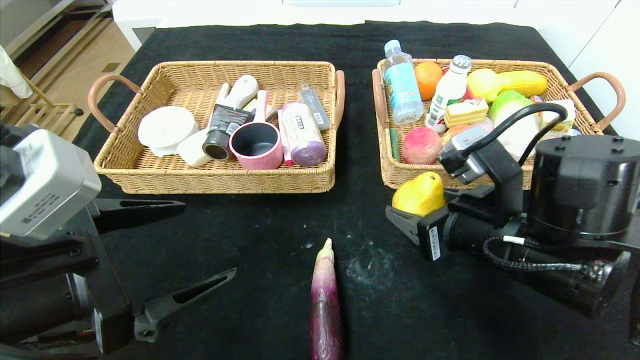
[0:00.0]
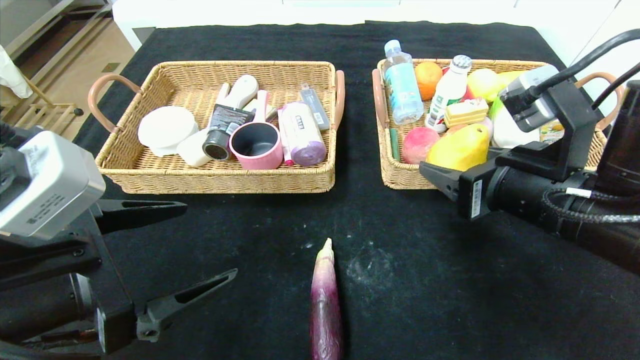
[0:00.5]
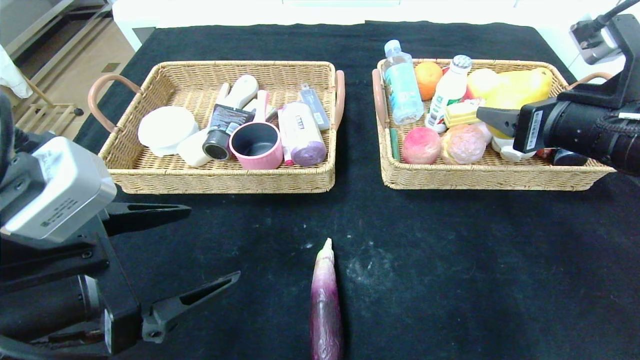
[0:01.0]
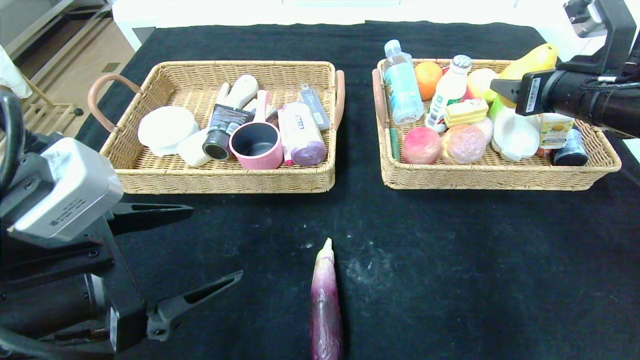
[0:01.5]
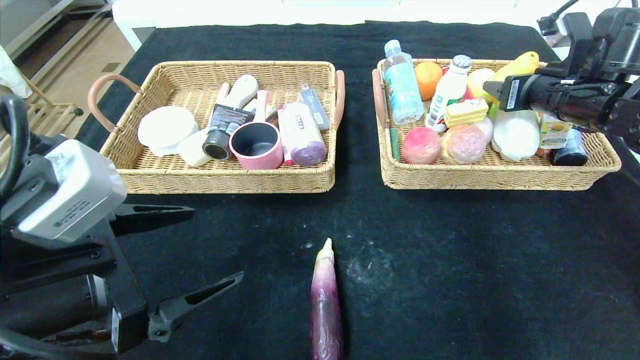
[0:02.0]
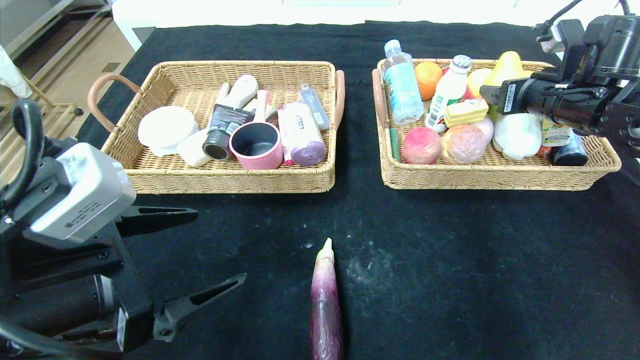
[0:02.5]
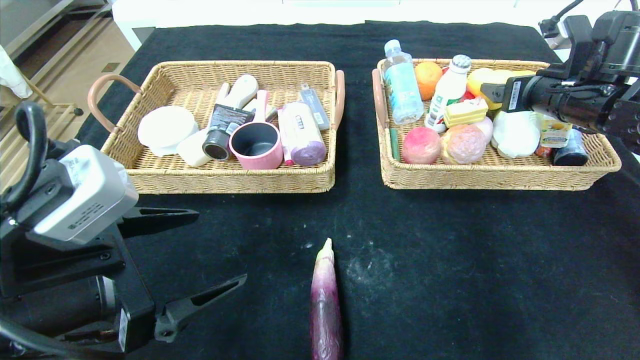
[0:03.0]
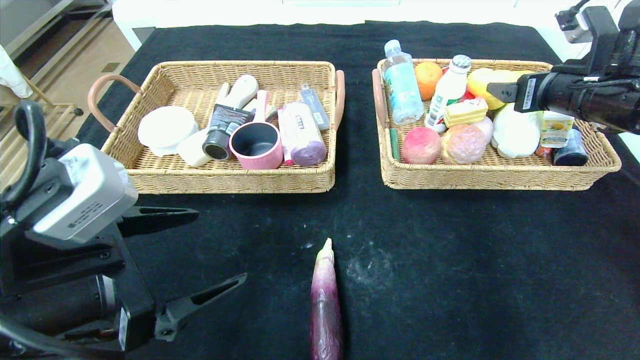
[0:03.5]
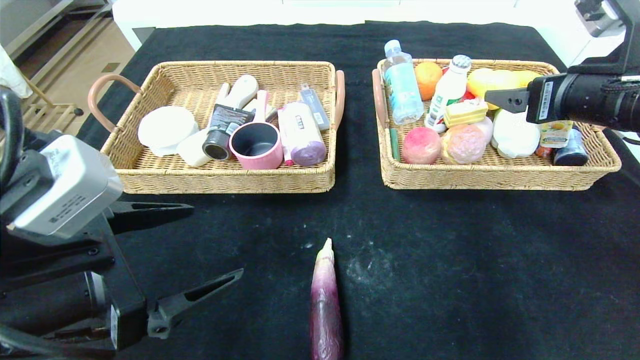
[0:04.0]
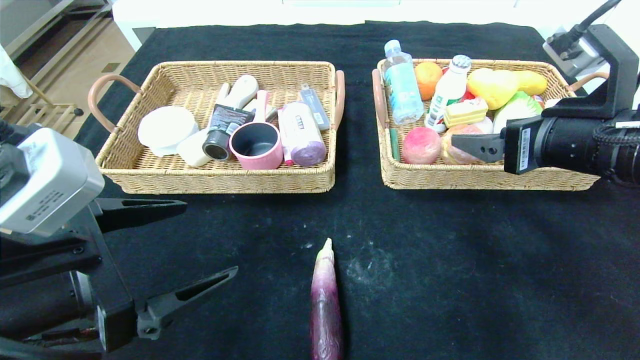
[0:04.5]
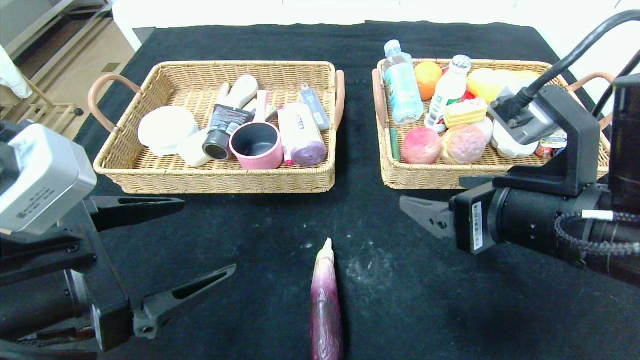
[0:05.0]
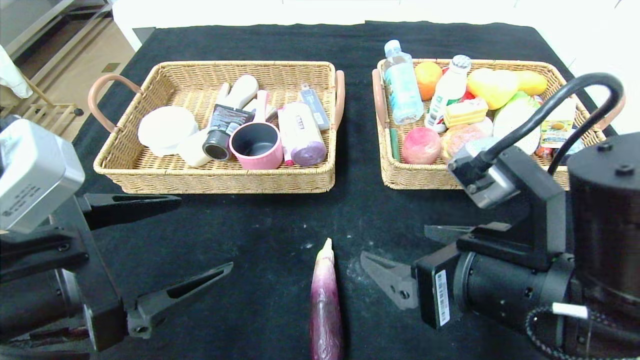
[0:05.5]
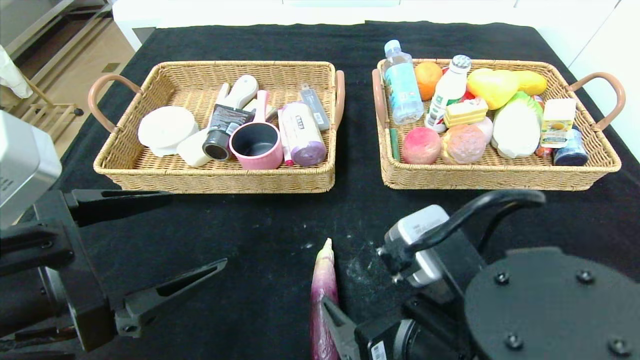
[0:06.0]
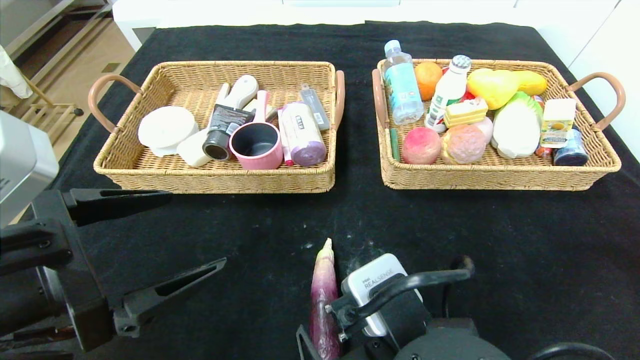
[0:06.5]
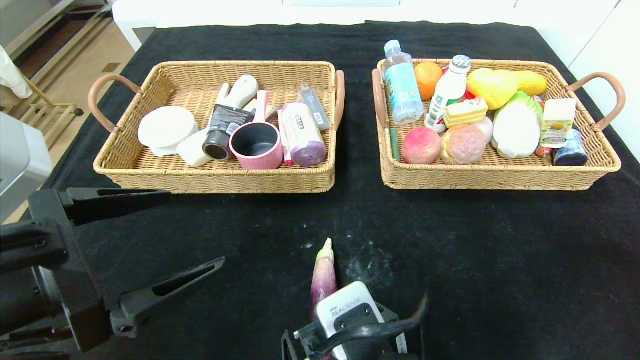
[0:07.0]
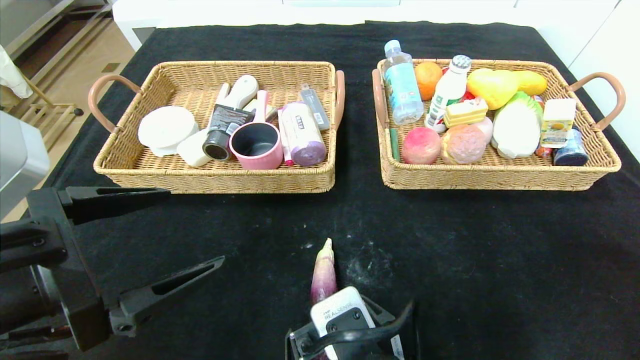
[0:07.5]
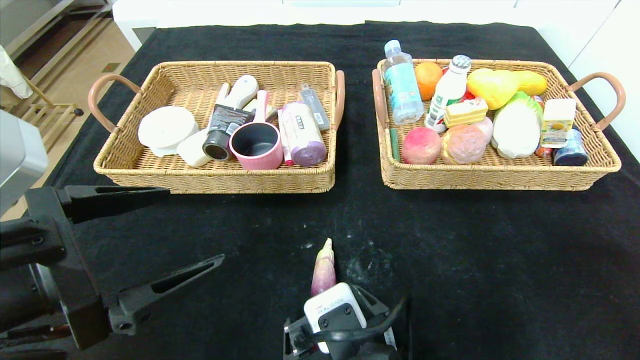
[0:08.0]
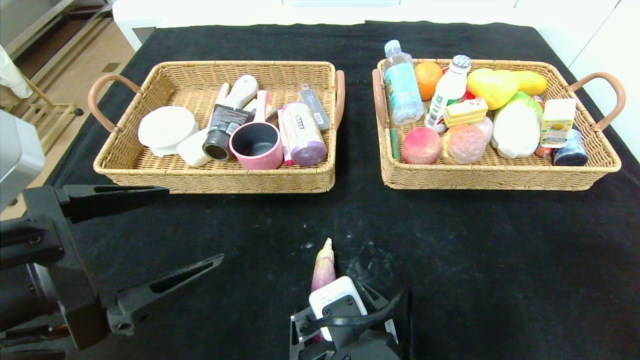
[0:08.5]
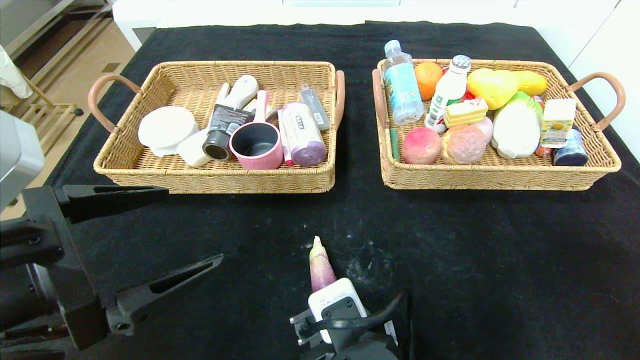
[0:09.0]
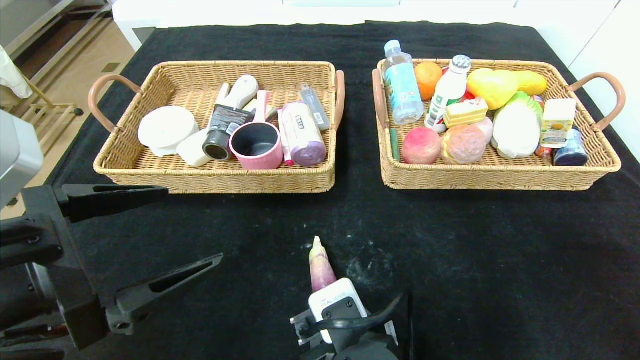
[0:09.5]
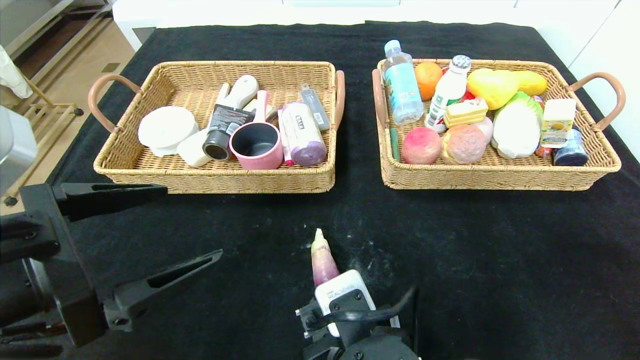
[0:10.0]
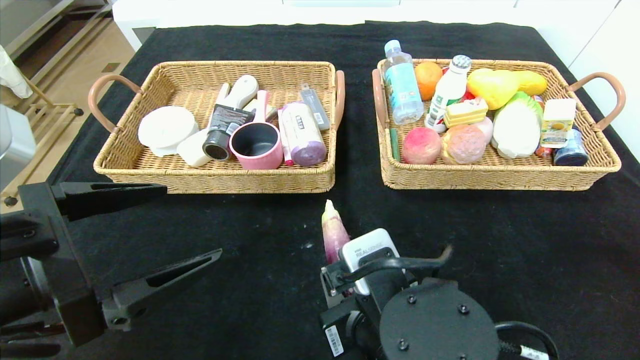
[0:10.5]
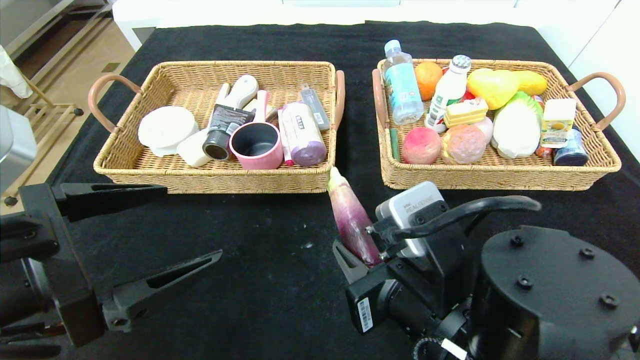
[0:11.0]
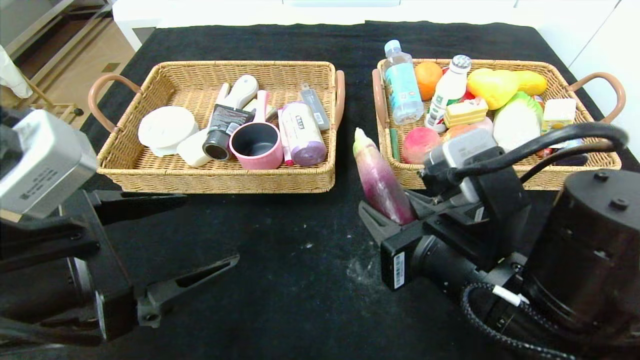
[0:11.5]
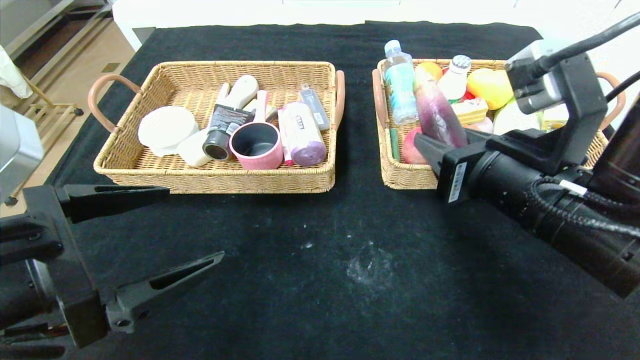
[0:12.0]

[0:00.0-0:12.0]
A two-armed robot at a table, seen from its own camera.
Step, 0:00.0 to 0:04.5: Pick up the pear and put it in the right basket.
0:00.0 to 0:02.0: The right gripper shifts approximately 25 cm forward, to the right and upward.
0:02.0 to 0:04.0: The right gripper is displaced backward by some 10 cm, and opens.
0:04.0 to 0:06.0: The right gripper travels to the left, backward and downward by about 30 cm.
0:06.0 to 0:08.0: The right gripper is displaced downward and to the left by about 10 cm.
0:08.0 to 0:10.0: The right gripper closes.
0:10.0 to 0:12.0: The right gripper is displaced upward, to the right and forward by approximately 20 cm.

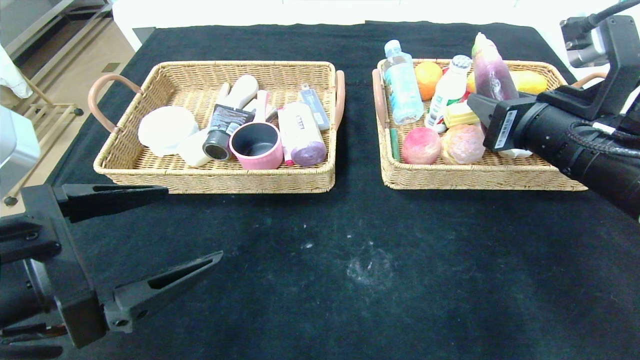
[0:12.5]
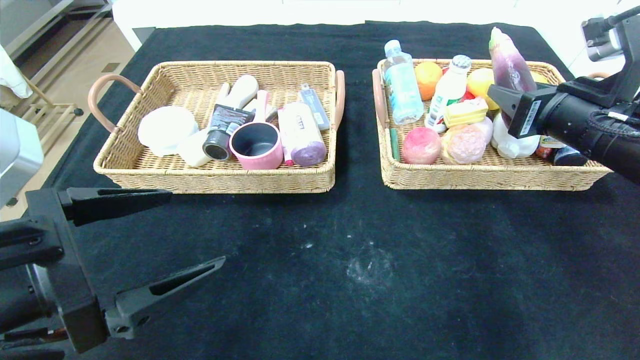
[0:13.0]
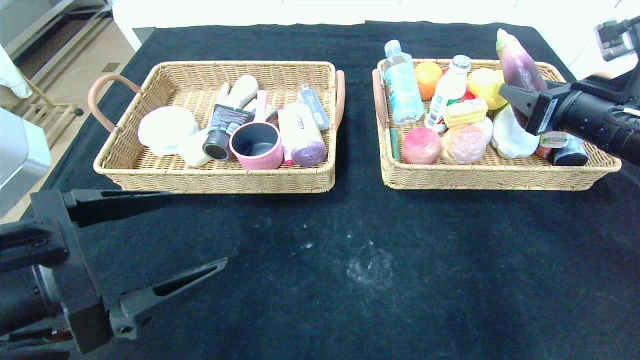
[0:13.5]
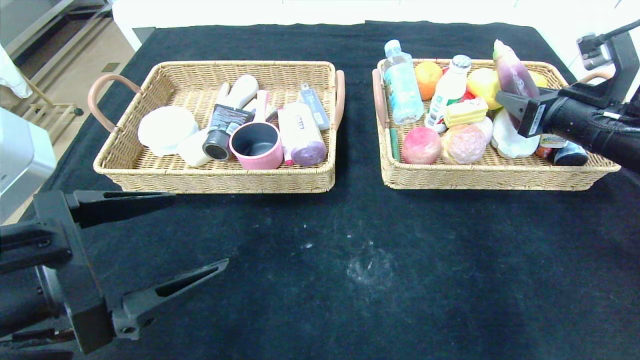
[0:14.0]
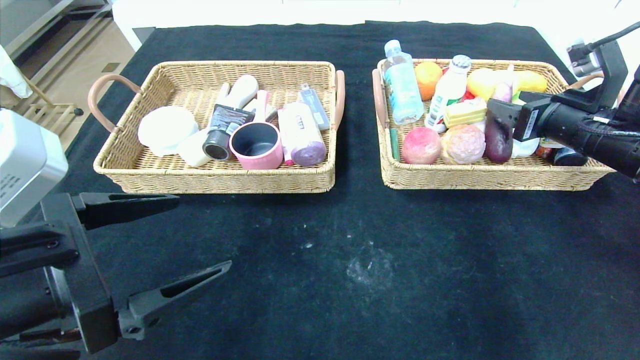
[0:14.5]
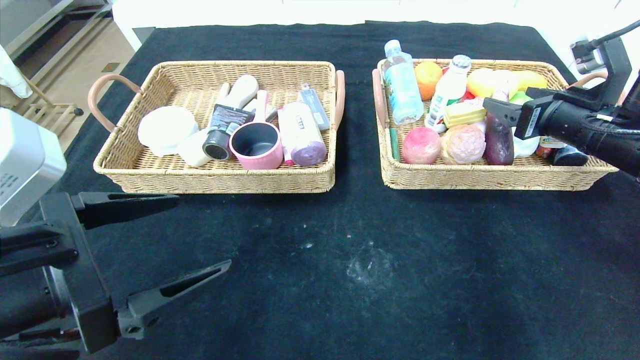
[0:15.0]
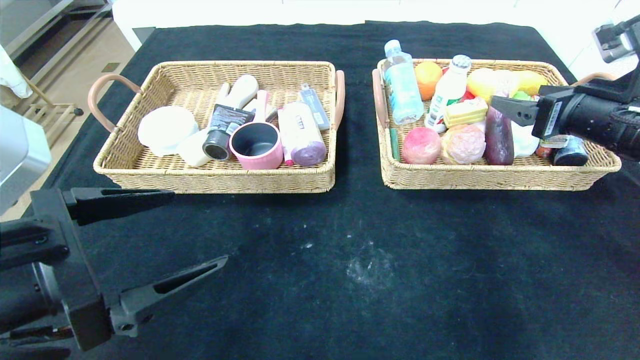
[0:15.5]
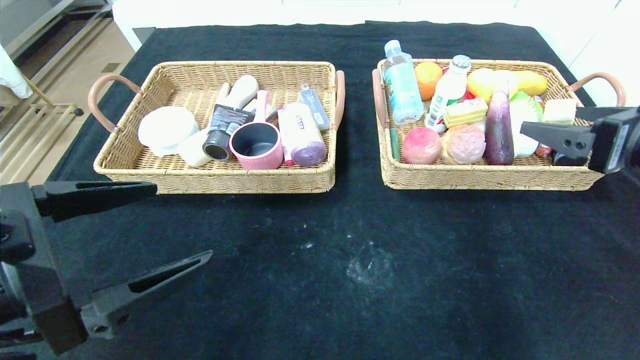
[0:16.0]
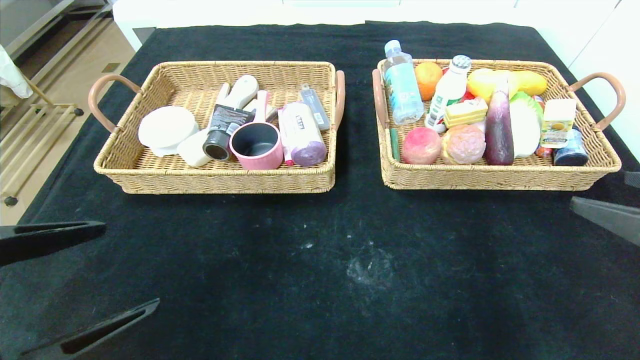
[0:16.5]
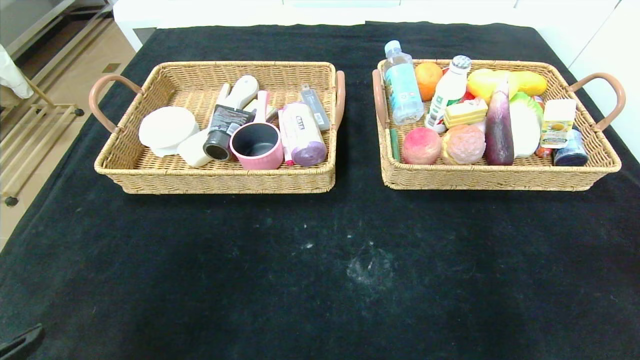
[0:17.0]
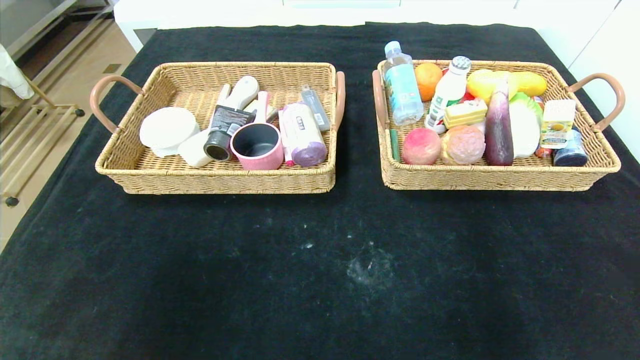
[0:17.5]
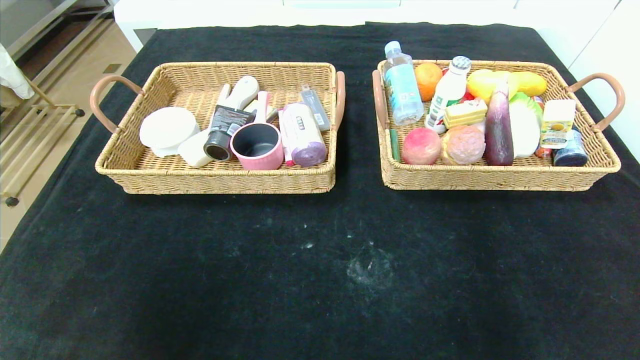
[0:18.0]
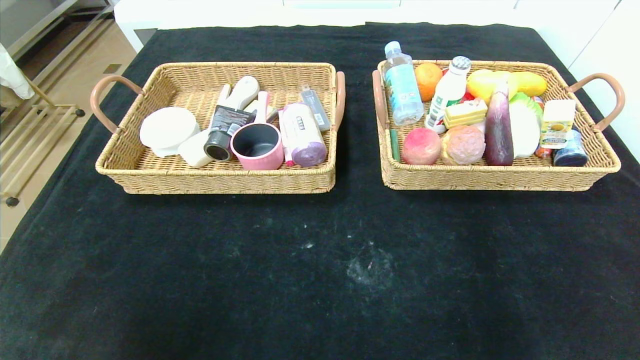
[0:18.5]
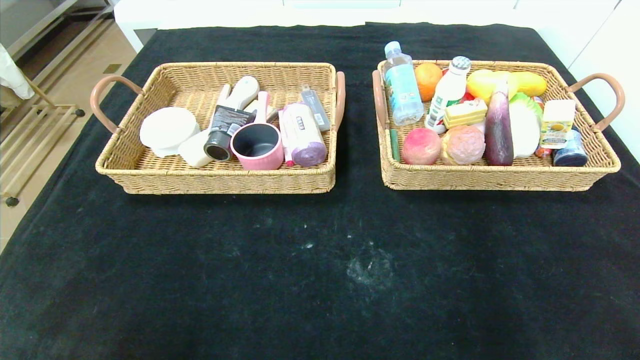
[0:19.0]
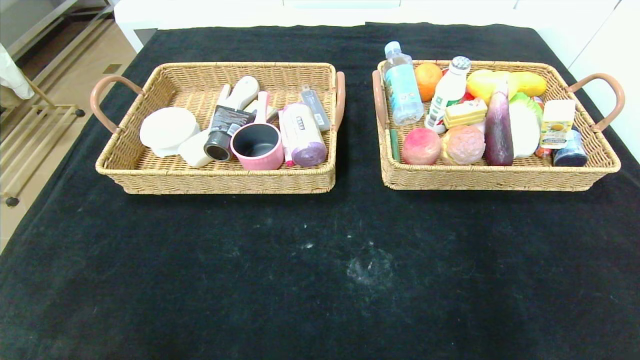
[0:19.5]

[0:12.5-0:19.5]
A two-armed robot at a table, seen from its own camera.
Step, 0:12.5 to 0:16.5: Pick up the eggplant and put it in the right basket.
0:12.5 to 0:14.5: The right gripper travels to the right and forward by about 10 cm.
0:14.5 to 0:16.0: The right gripper moves backward, approximately 15 cm, and opens up.
0:16.0 to 0:17.5: The left gripper goes approximately 15 cm backward and to the left. Meanwhile the right gripper is displaced backward by some 25 cm.

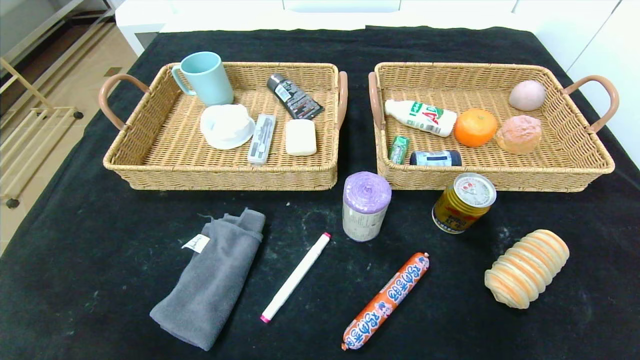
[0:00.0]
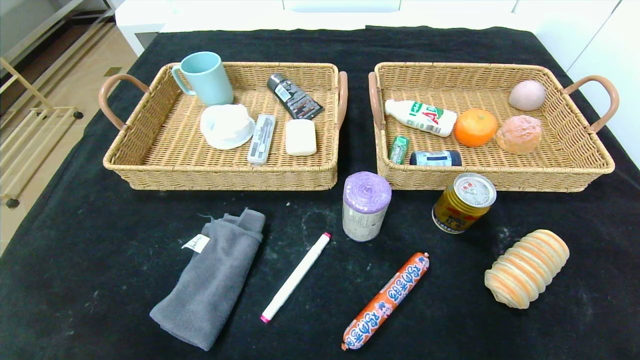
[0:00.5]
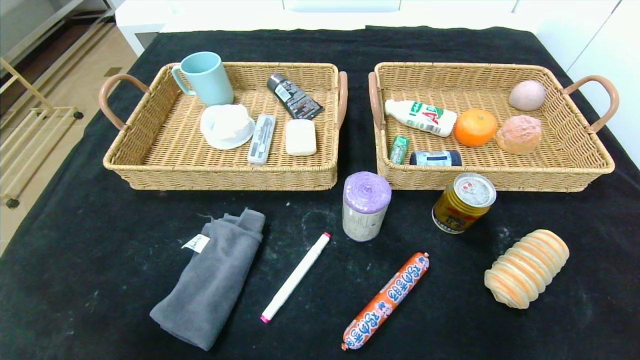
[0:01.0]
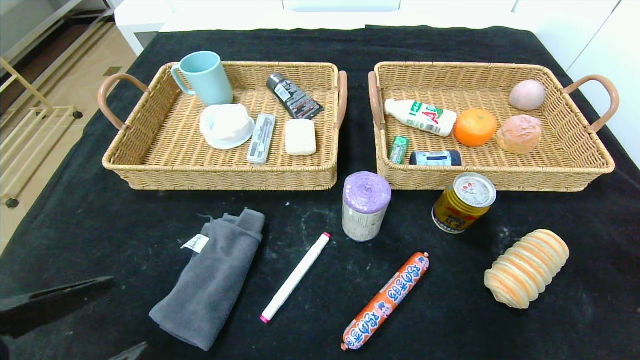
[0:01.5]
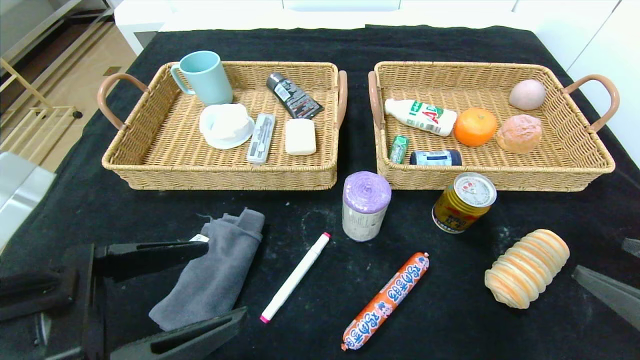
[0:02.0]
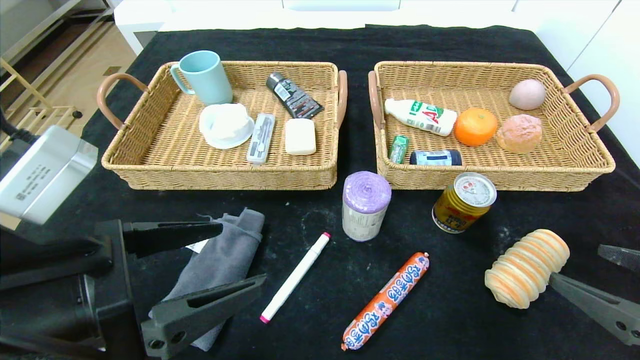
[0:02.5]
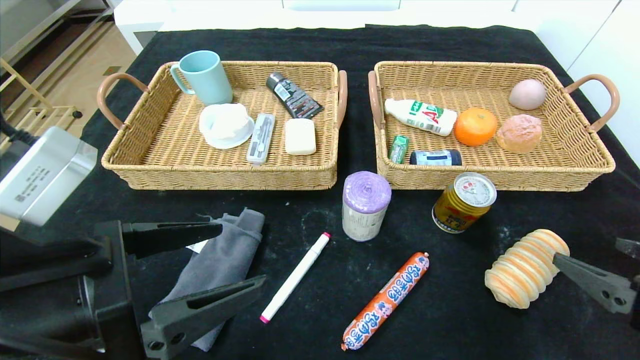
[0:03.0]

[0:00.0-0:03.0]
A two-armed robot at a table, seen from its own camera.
0:00.0 to 0:01.5: The grippers both shift upward and forward by approximately 15 cm.
0:01.5 to 0:03.0: The right gripper is displaced forward by about 5 cm. Meanwhile the left gripper goes approximately 10 cm forward and to the right.
